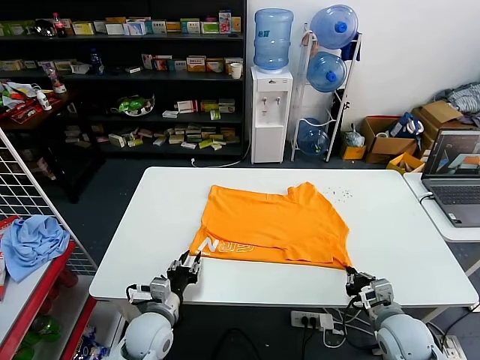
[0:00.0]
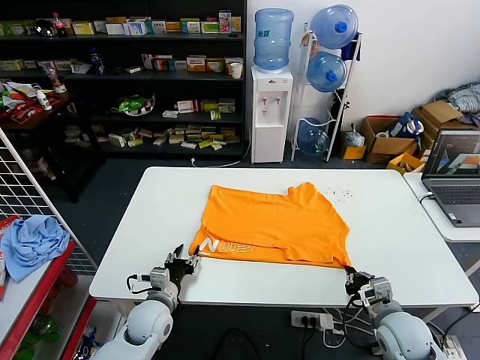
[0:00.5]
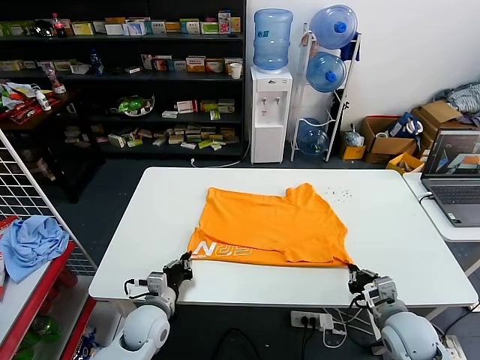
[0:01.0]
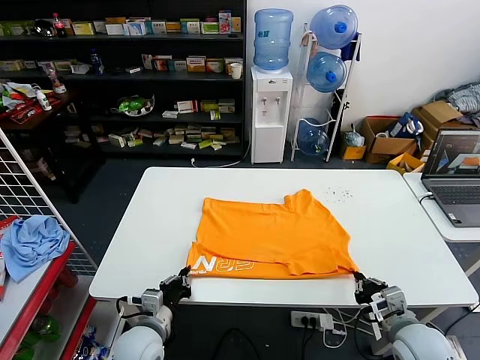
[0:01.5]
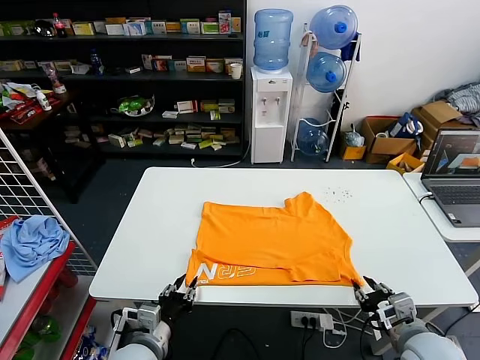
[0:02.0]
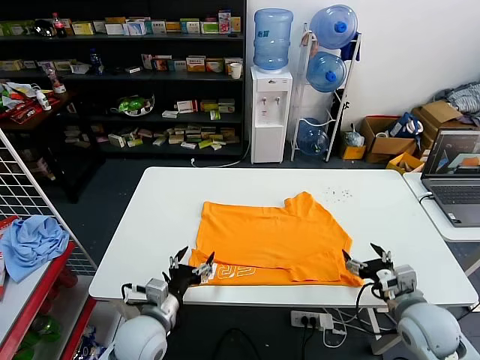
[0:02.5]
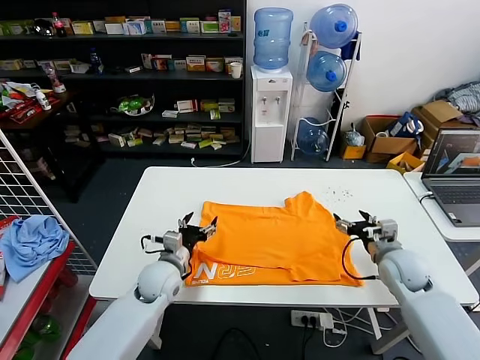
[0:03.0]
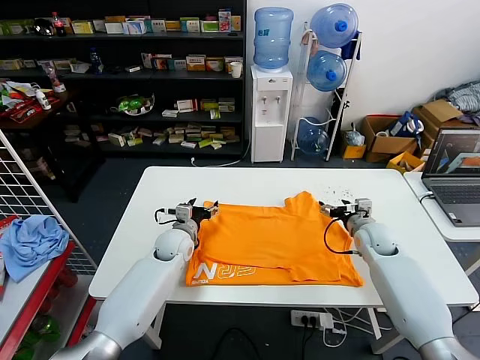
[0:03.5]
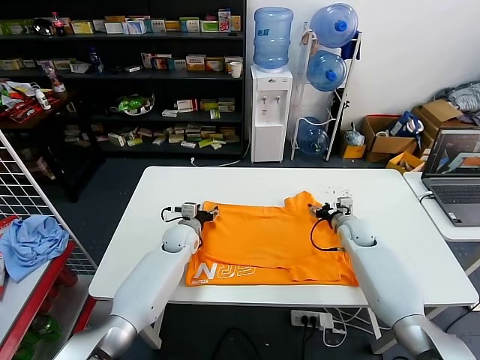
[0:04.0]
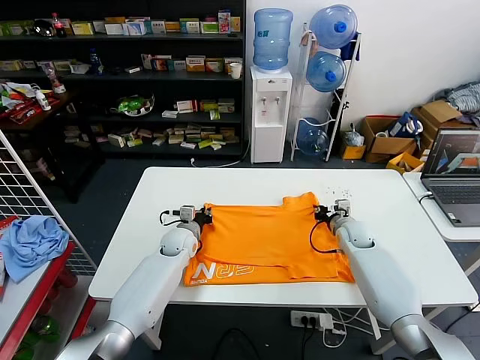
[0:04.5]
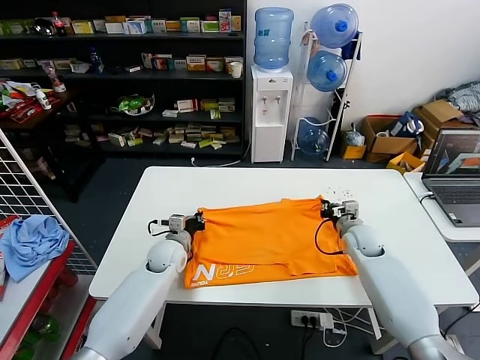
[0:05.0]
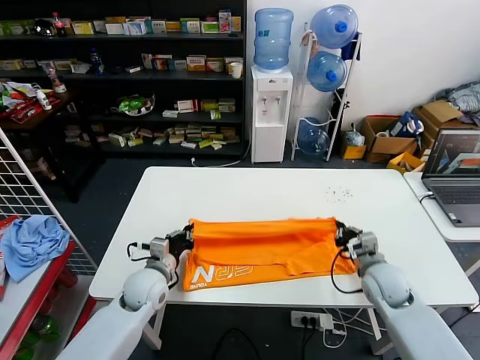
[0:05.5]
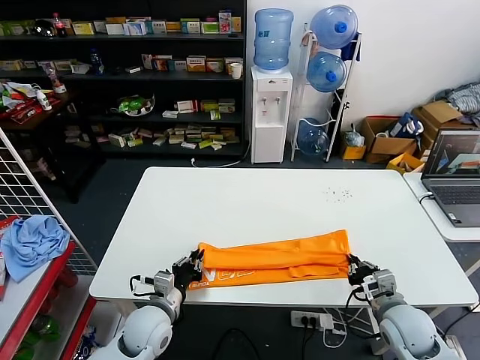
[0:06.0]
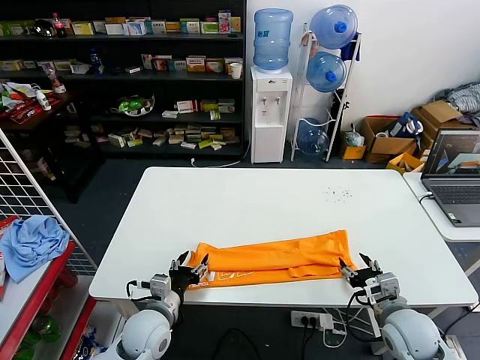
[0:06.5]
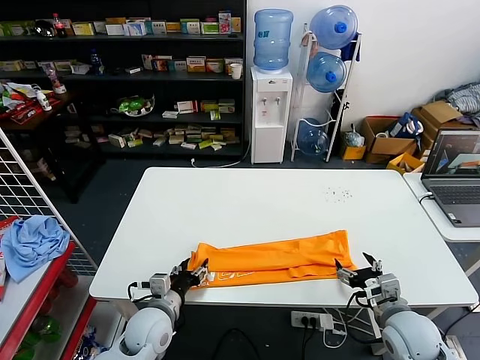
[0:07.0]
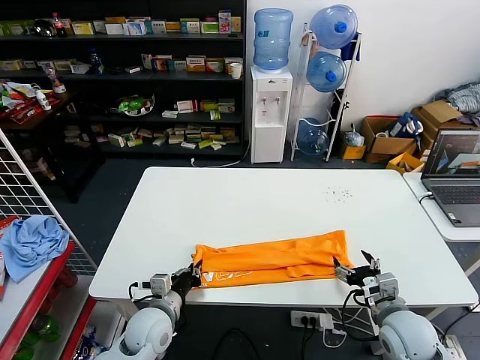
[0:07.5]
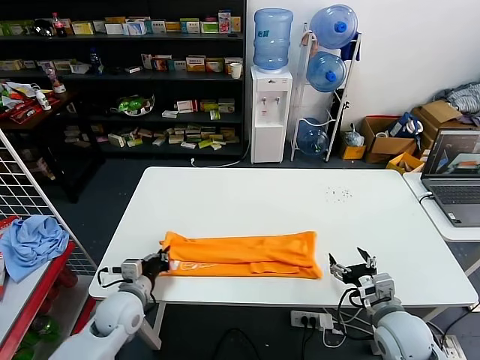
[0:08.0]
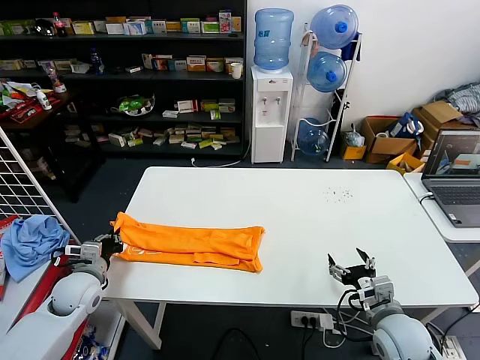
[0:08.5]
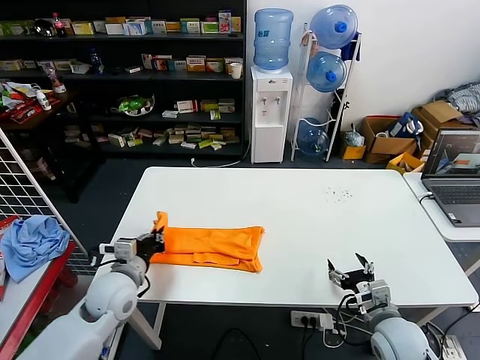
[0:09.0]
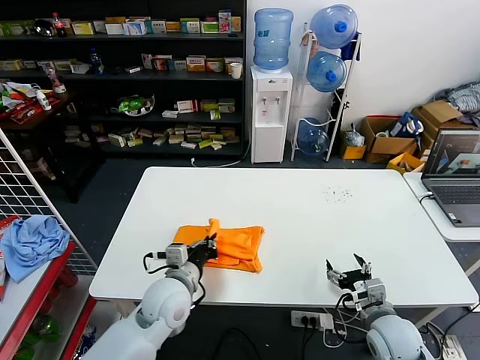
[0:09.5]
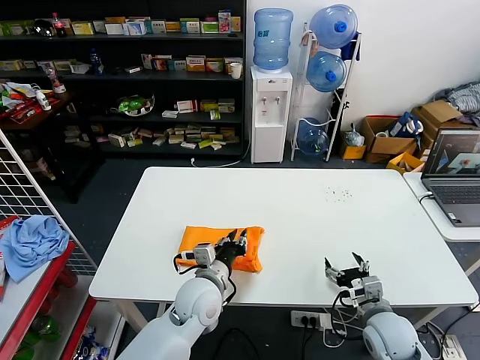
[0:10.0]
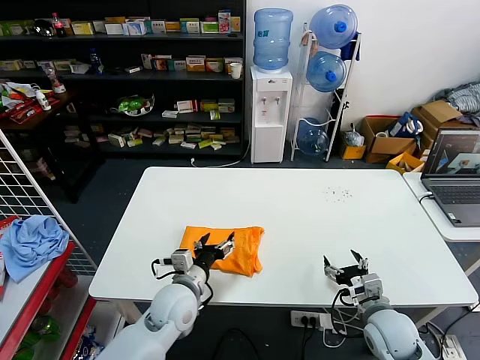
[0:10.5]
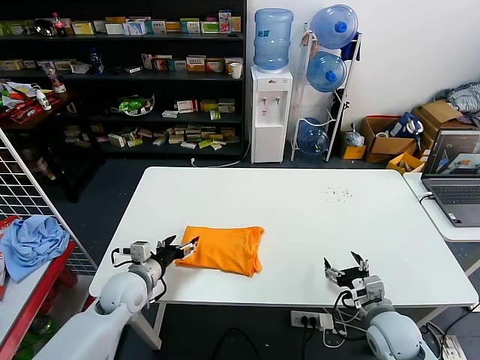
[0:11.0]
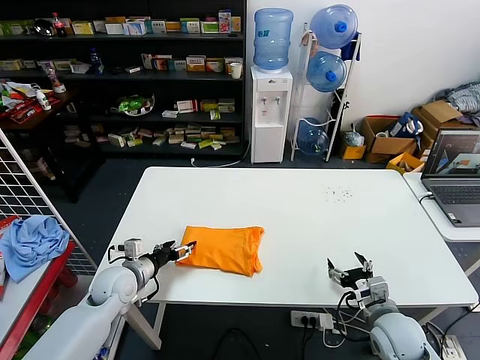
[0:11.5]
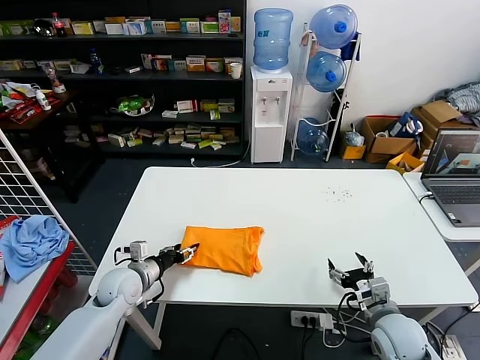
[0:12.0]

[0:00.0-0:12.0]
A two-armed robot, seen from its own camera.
Task of the whole recording: fold and organize the clothes.
Step, 0:00.0 to 0:02.0: Drag the clothes downward with both gripper.
Step, 0:02.5 to 0:04.5: use both grippers simultaneously to clamp the upper edge of the clothing fabric.
Step, 0:05.0 to 0:06.0: use both grippers to drag the upper edge of the fabric backward and fold it over the lower edge.
Step, 0:06.5 to 0:07.5: use the left gripper to clamp the left edge of the fabric.
Step, 0:08.0 to 0:10.0: use the left gripper to drag the left edge of the fabric to the left and folds it over the right edge.
0:00.0 to 0:02.0: The right gripper goes approximately 5 cm upward and backward, and opens up, while the left gripper shifts about 5 cm backward, and closes and opens again.
0:02.0 to 0:04.0: Both grippers move forward, approximately 30 cm. The left gripper opens its fingers.
0:04.0 to 0:06.0: Both grippers travel together backward, roughly 25 cm. The right gripper closes up. Meanwhile the left gripper closes up.
0:06.0 to 0:08.0: The left gripper travels to the left by some 5 cm, and opens, then closes once more. The right gripper opens.
0:08.0 to 0:10.0: The left gripper goes some 15 cm to the right.
0:10.0 to 0:12.0: The left gripper heads to the left, covering about 20 cm, and opens up.

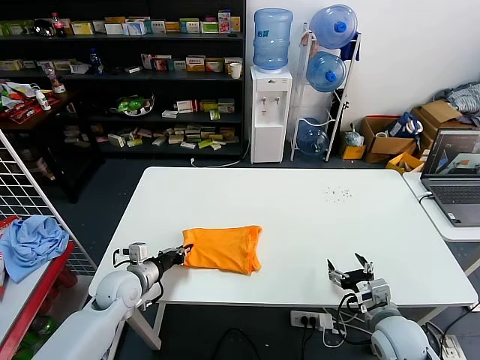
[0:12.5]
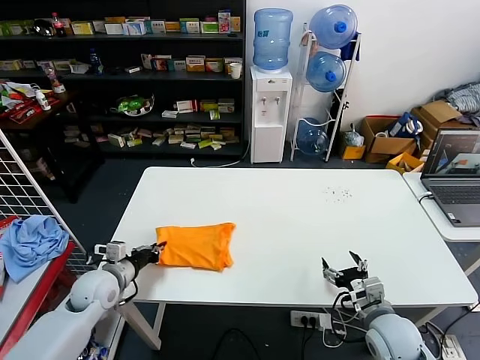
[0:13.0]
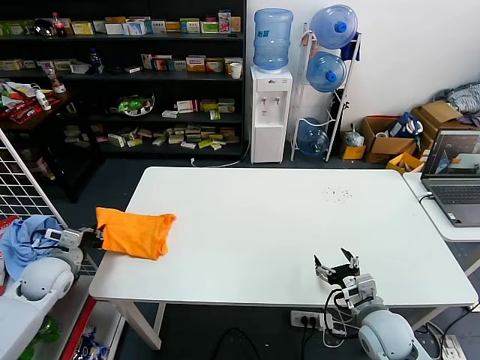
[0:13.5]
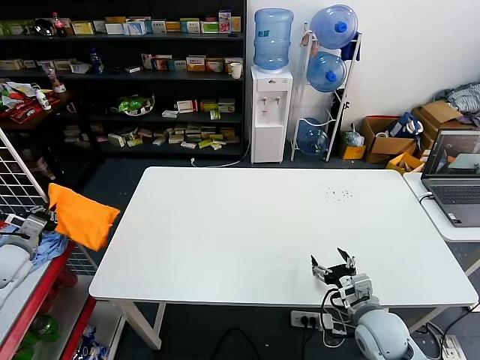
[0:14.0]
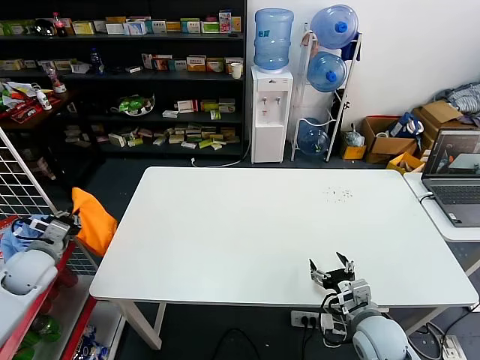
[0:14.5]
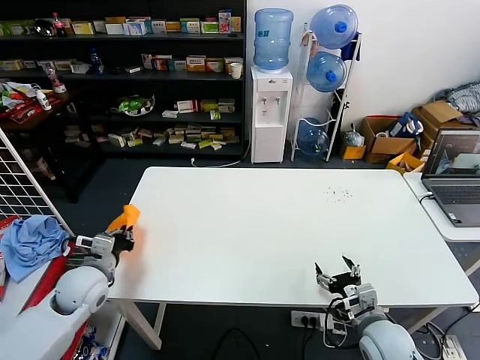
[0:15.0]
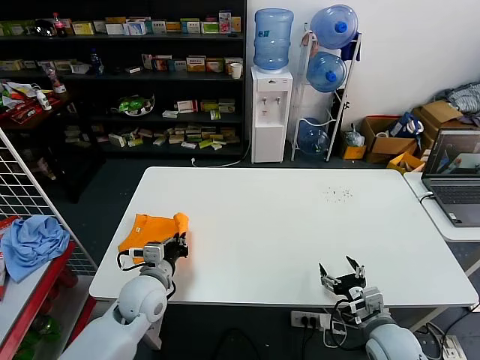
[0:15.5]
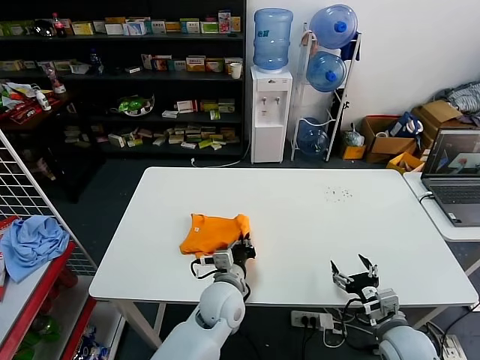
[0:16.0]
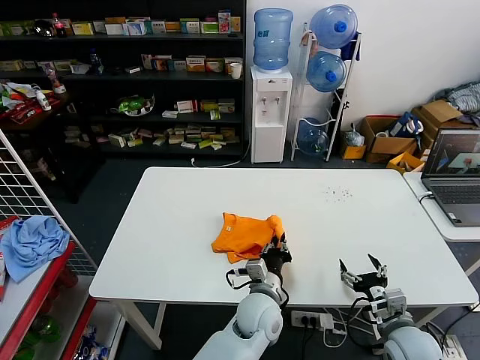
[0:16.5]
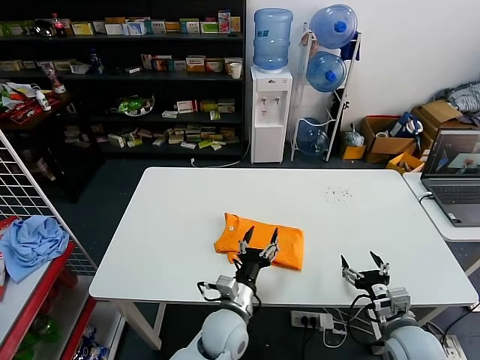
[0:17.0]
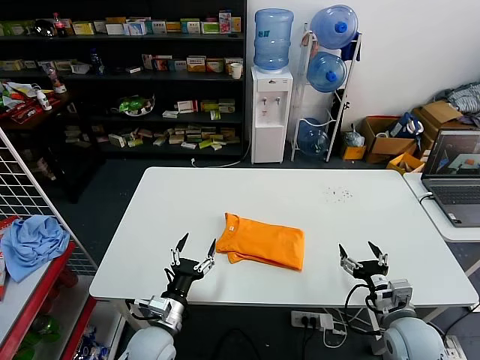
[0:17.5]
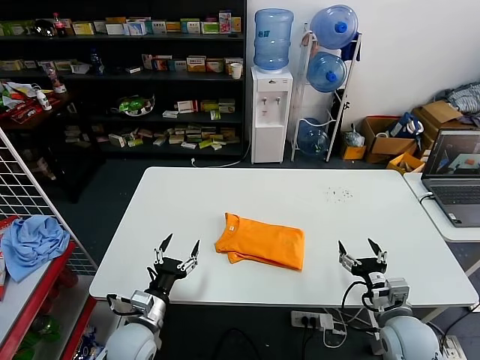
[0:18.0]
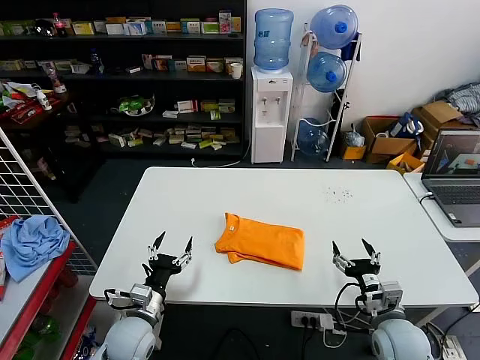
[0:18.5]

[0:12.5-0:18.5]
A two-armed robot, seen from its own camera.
Task of the whole recording: fold and organize the clothes.
Step, 0:12.5 to 0:16.5: Flip the folded clothes over with left gripper.
0:12.5 to 0:14.5: The left gripper is displaced to the left and upward by approximately 20 cm.
0:14.5 to 0:16.5: The right gripper moves to the right, approximately 5 cm. Meanwhile the left gripper heads to the right, covering roughly 50 cm.
0:16.5 to 0:18.5: The left gripper moves to the left, approximately 25 cm, and opens up.

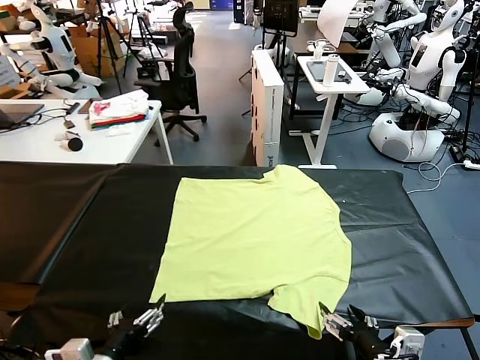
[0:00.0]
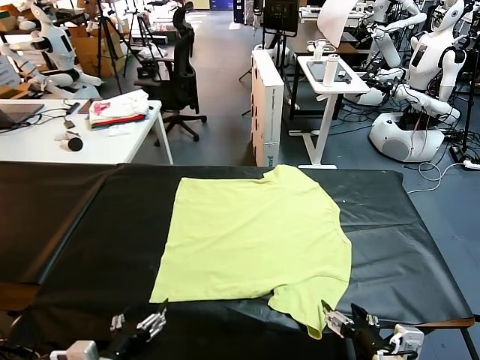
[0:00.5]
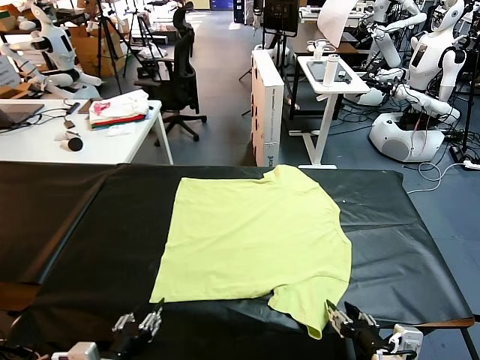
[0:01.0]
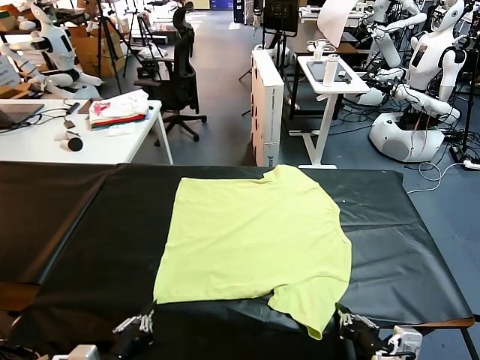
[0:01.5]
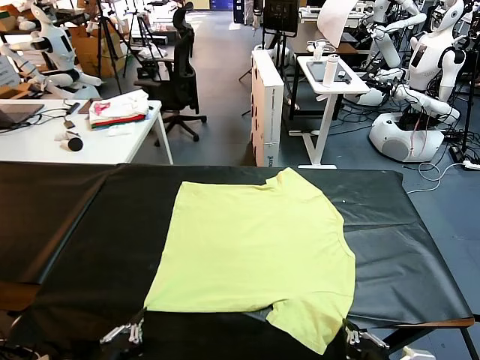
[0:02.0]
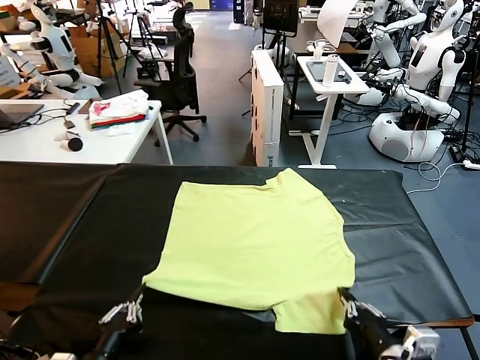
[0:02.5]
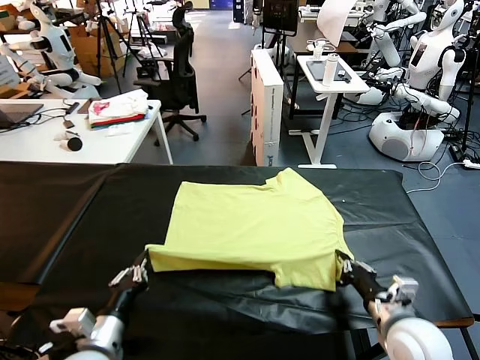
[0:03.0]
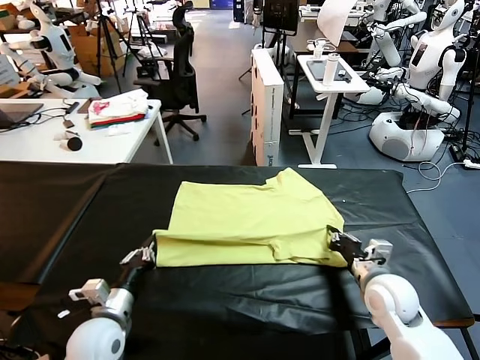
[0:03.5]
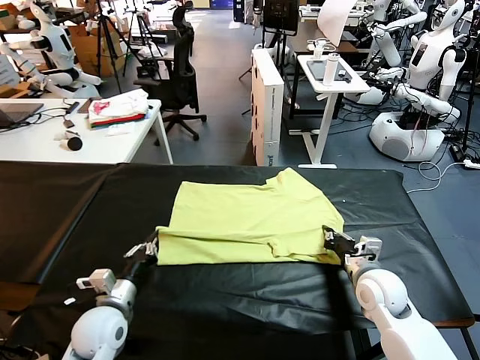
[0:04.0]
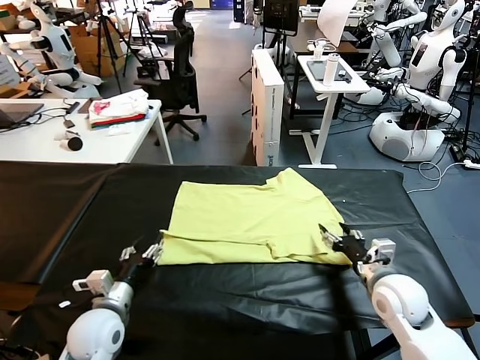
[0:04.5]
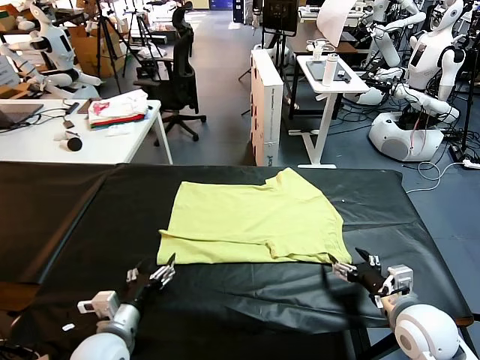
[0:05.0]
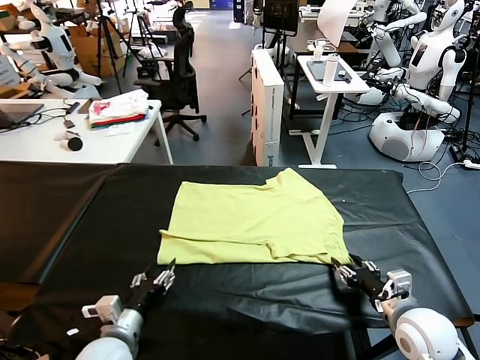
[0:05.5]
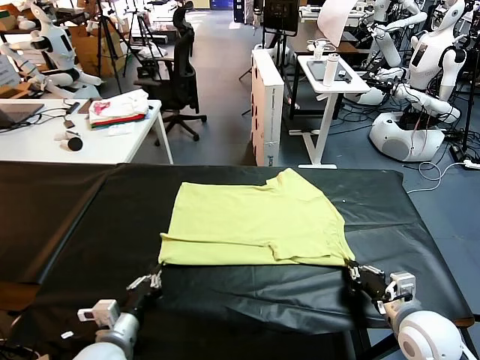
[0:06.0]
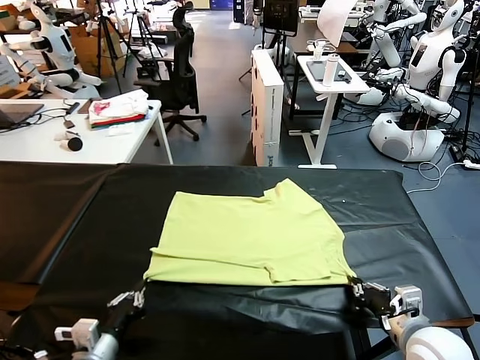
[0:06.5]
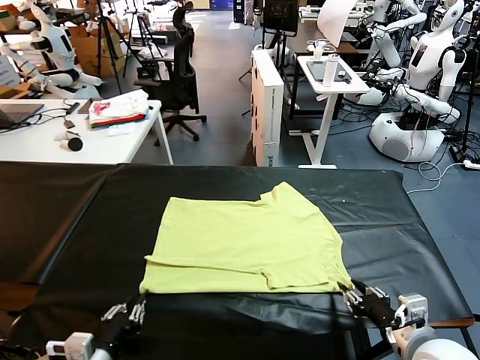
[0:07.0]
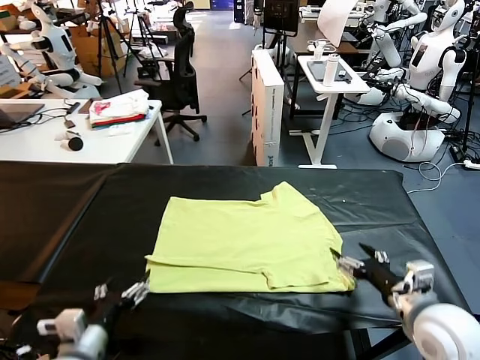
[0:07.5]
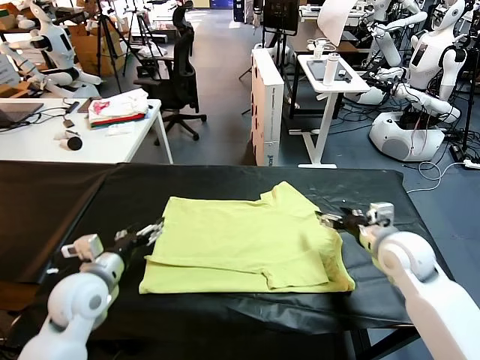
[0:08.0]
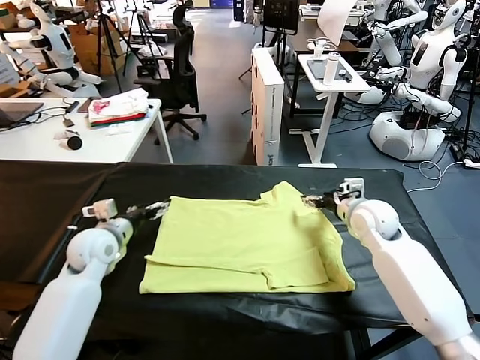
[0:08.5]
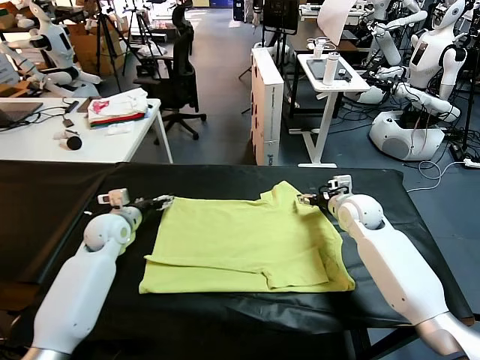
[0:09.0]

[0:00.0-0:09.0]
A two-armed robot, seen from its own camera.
Task of the whole recording: fold and organize the clothes.
Step, 0:00.0 to 0:01.5: use both grippers simultaneously to clamp the lower edge of the clothing fabric.
Step, 0:02.0 to 0:04.0: use both grippers to drag the lower edge of the fabric forward and fold it over the upper edge.
Step, 0:05.0 to 0:07.0: Drag the clothes downward with both gripper.
0:02.0 to 0:04.5: The two grippers go about 15 cm forward. The left gripper opens. The right gripper opens up.
0:04.5 to 0:07.0: The left gripper travels backward by some 10 cm, and closes, then reopens. Meanwhile the right gripper moves backward, some 10 cm, and closes, then opens again.
0:07.0 to 0:09.0: Both grippers move forward, some 35 cm.
